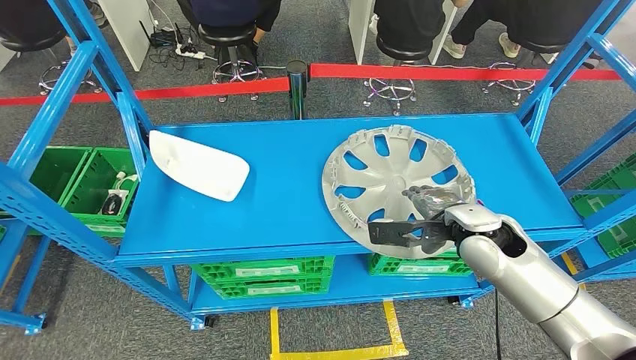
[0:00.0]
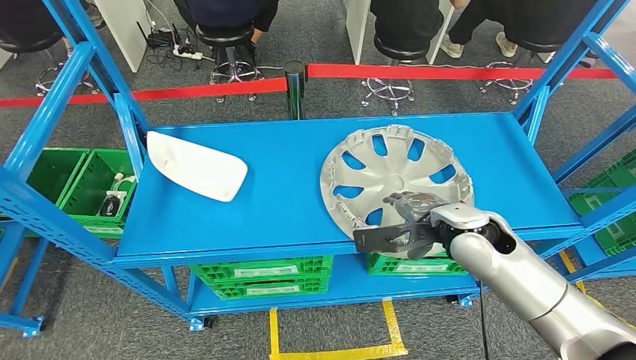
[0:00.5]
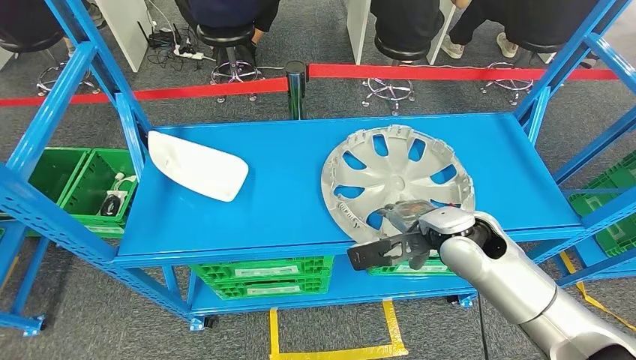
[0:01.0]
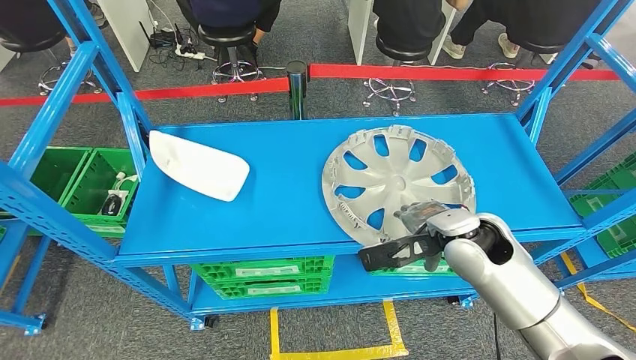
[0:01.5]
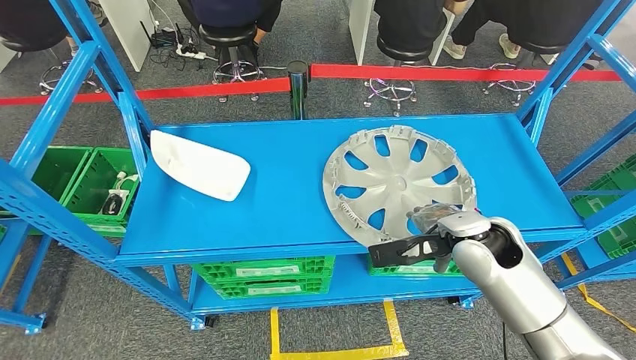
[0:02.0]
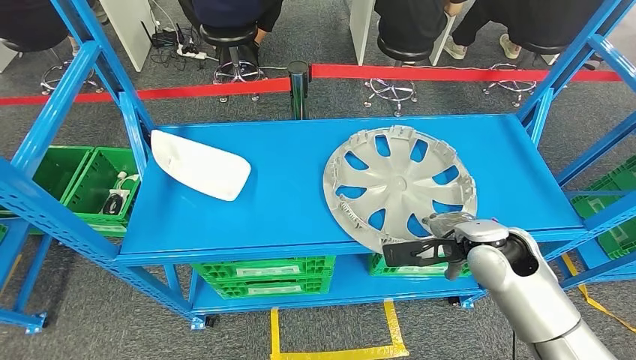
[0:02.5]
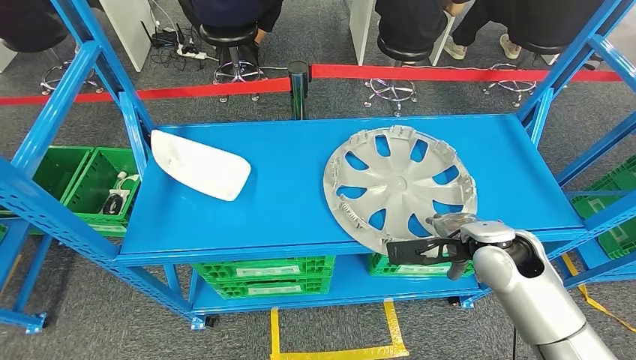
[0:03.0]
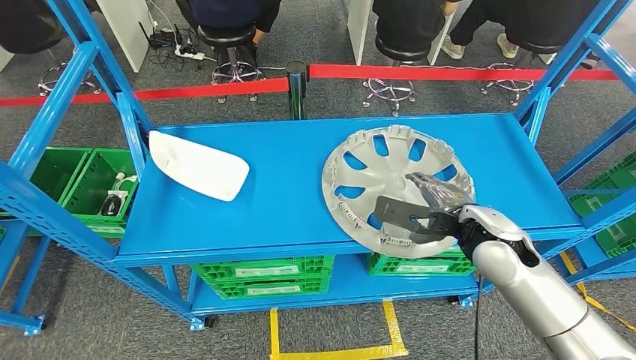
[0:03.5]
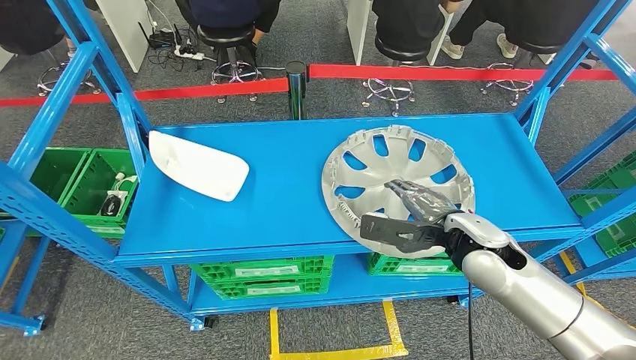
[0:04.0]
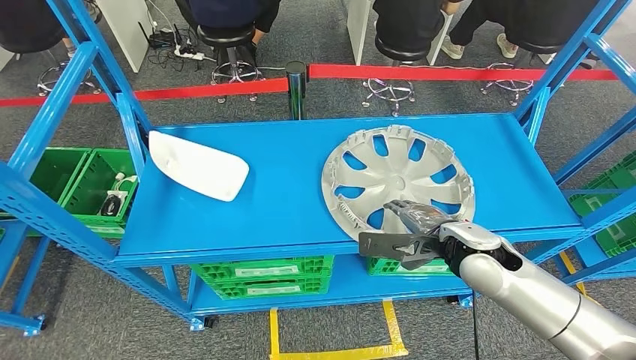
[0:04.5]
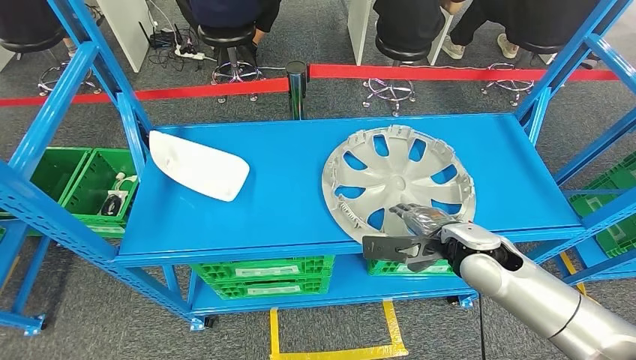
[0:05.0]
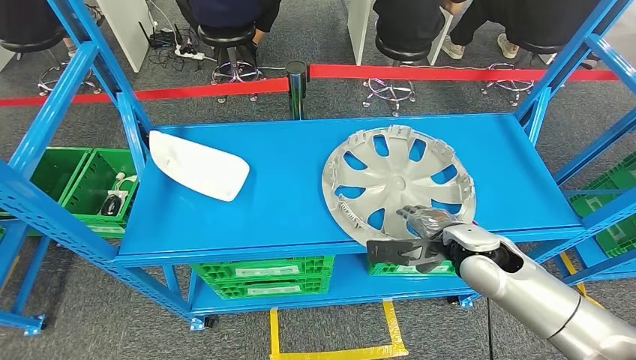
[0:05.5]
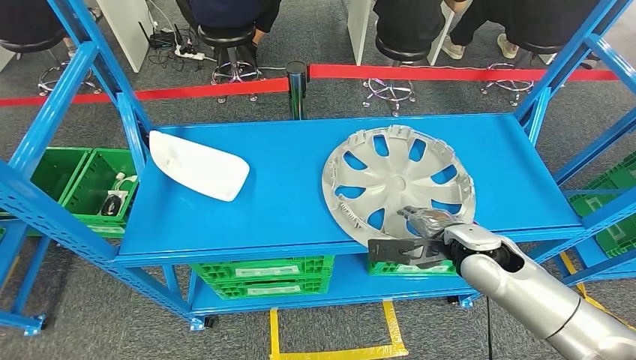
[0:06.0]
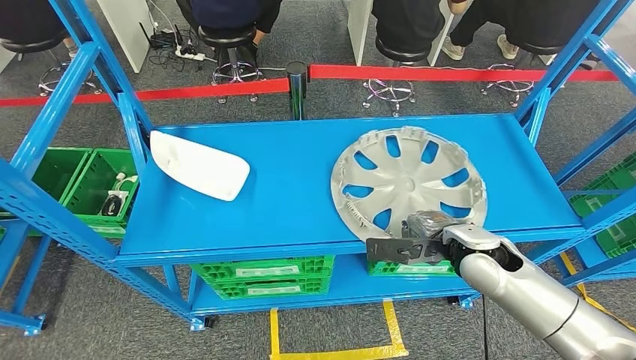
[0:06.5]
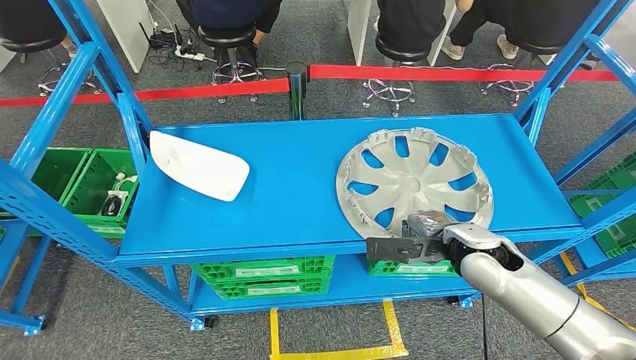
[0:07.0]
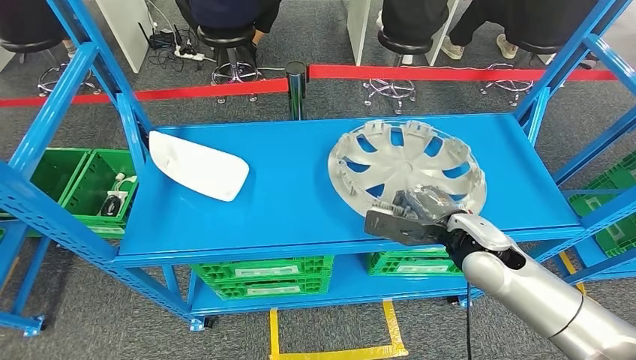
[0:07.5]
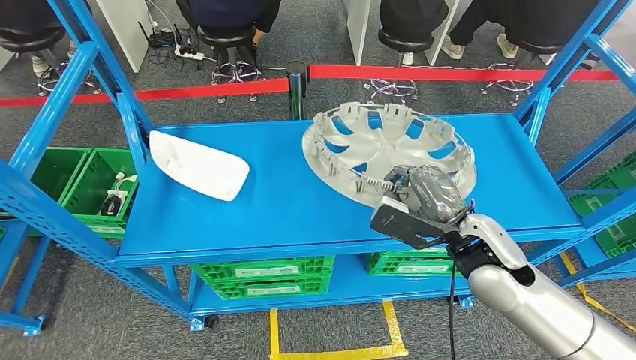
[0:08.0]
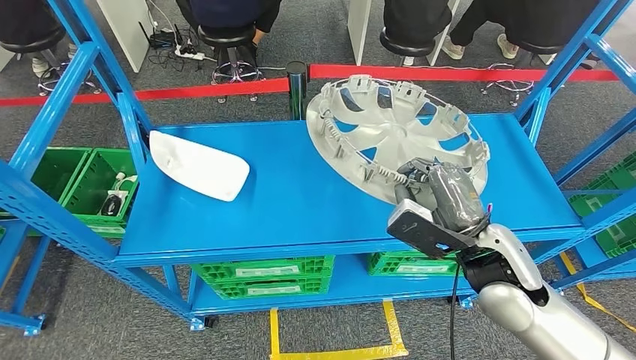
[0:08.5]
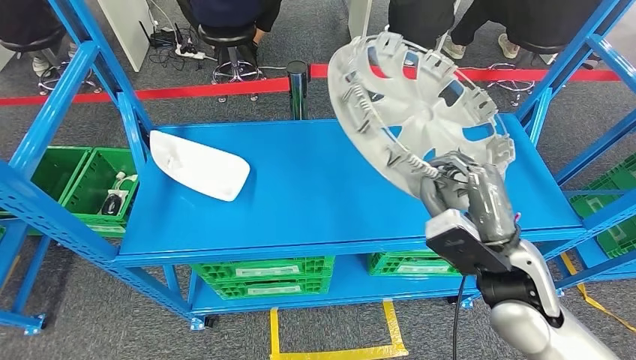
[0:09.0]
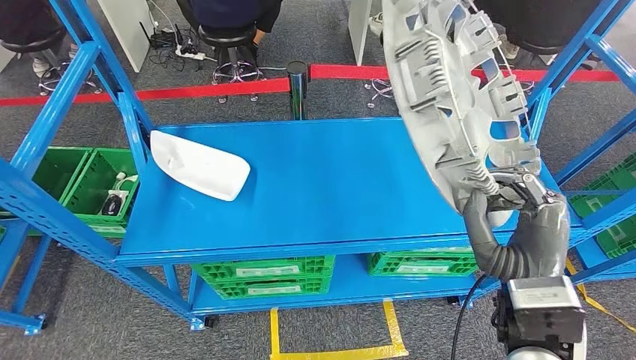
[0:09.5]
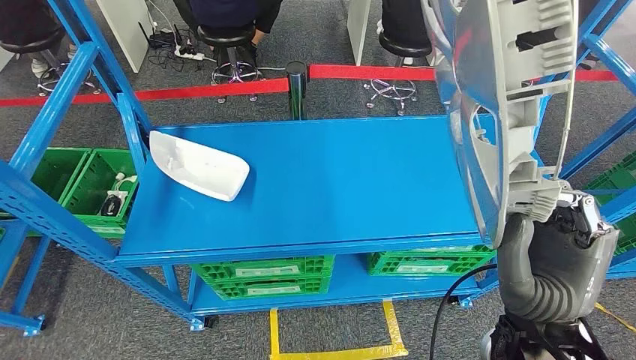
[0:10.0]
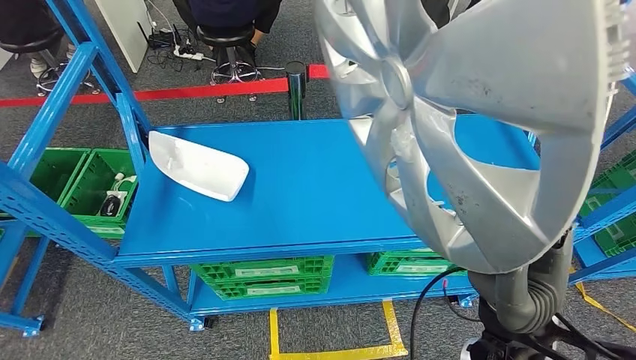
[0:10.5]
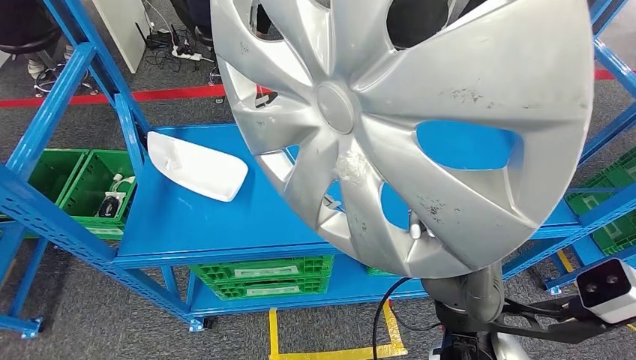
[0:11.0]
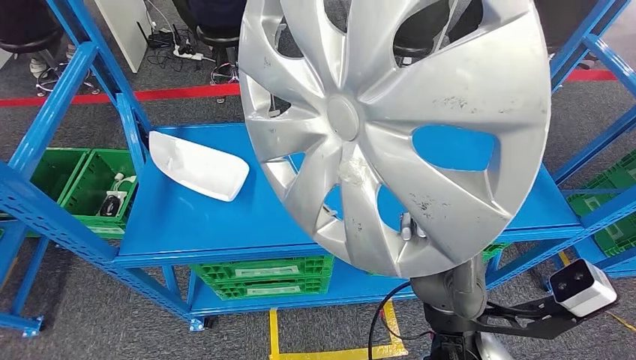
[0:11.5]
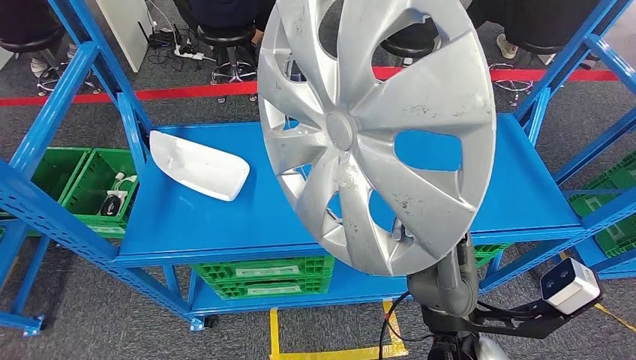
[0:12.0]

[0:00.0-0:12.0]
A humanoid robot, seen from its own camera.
Step, 0:00.0 to 0:10.0: Take small components from the rack.
0:00.0 to 0:02.0: The hands make only small movements.
0:04.0 to 0:06.0: The hands stay close to where they were, moving slightly.
0:06.0 to 0:08.0: The right hand moves about 5 cm.

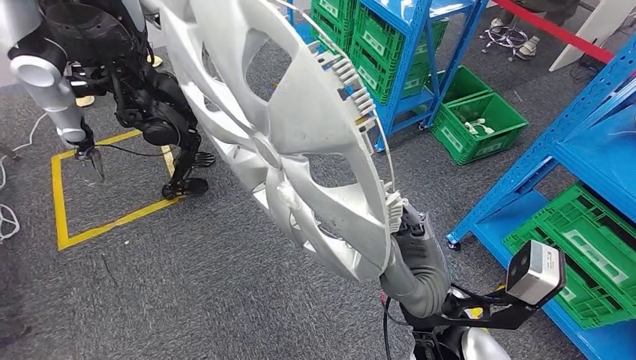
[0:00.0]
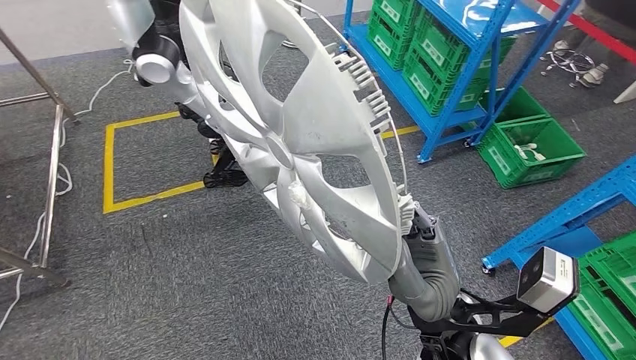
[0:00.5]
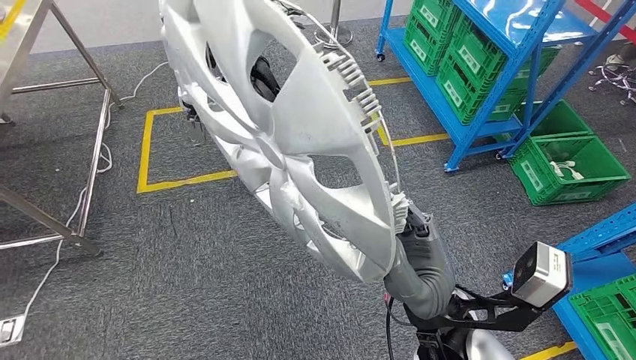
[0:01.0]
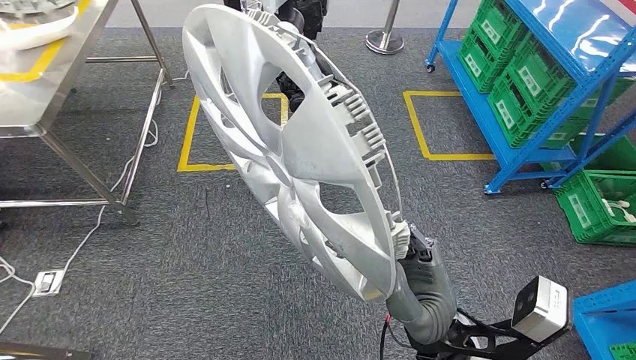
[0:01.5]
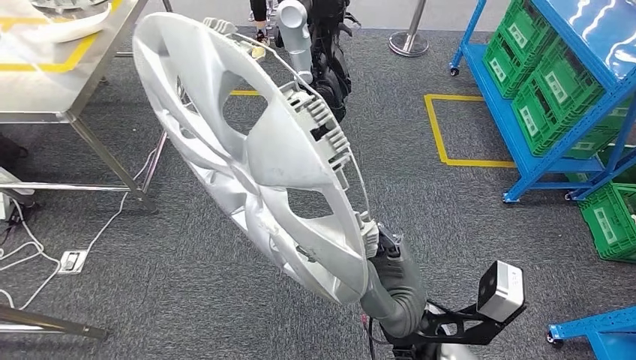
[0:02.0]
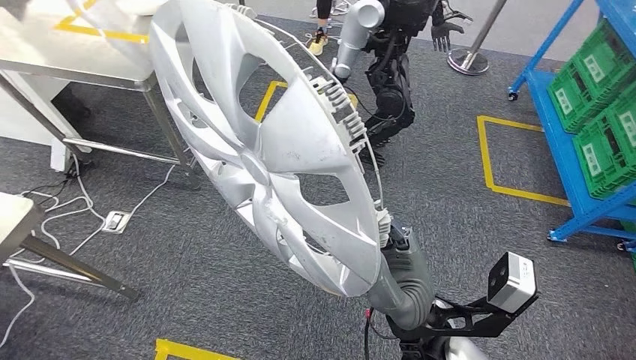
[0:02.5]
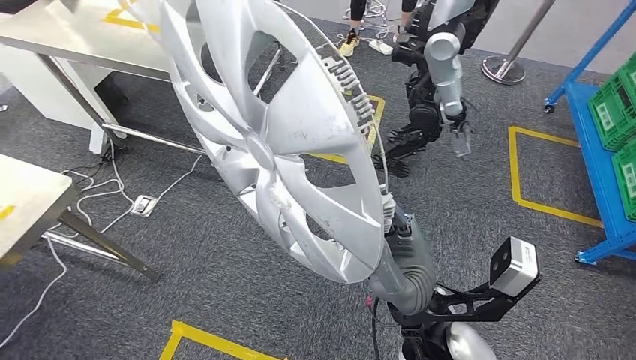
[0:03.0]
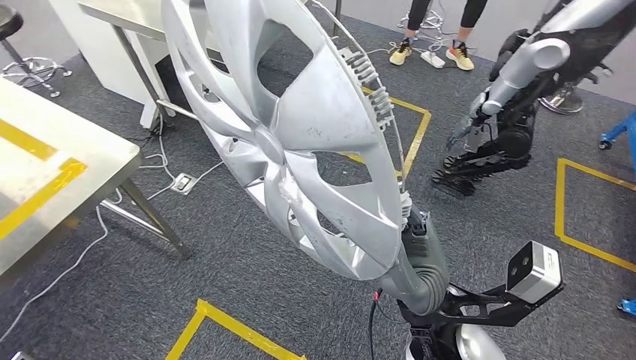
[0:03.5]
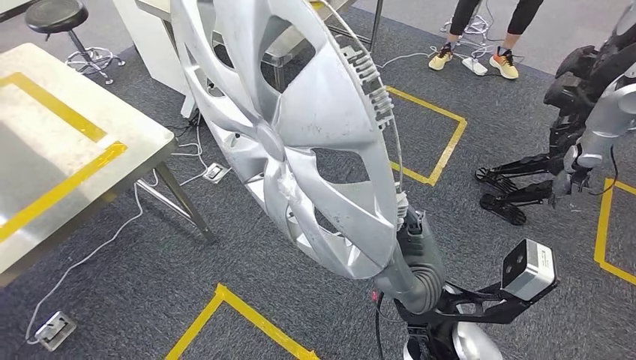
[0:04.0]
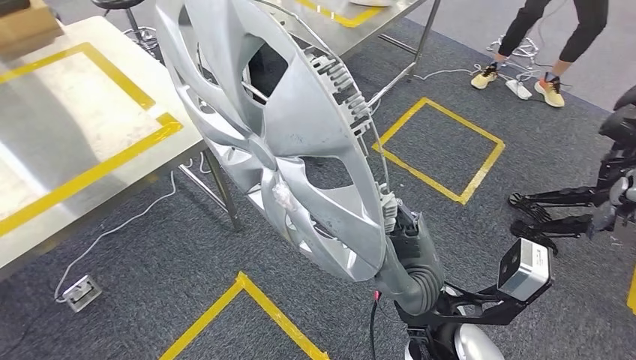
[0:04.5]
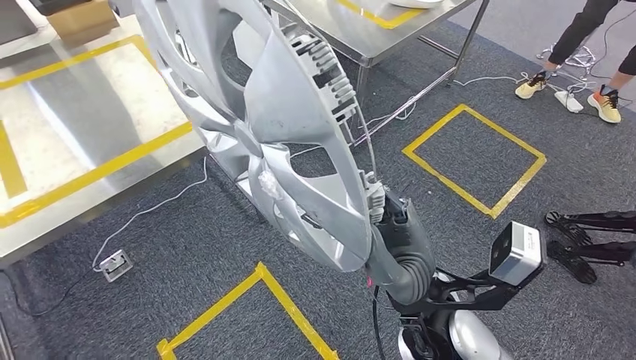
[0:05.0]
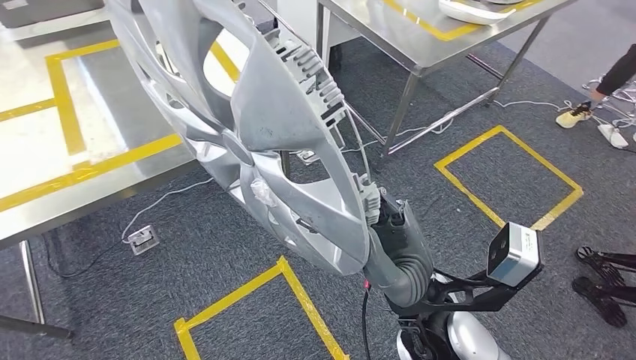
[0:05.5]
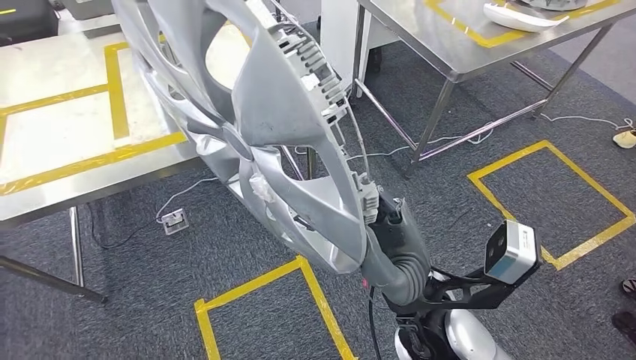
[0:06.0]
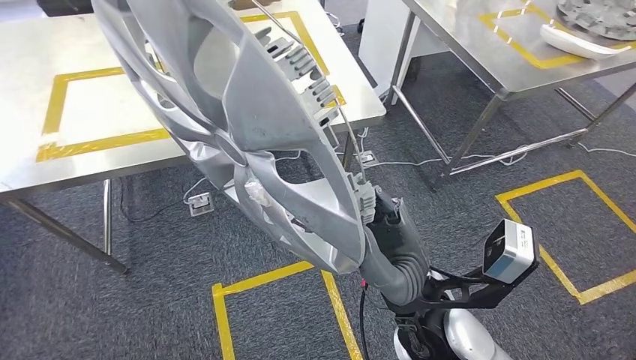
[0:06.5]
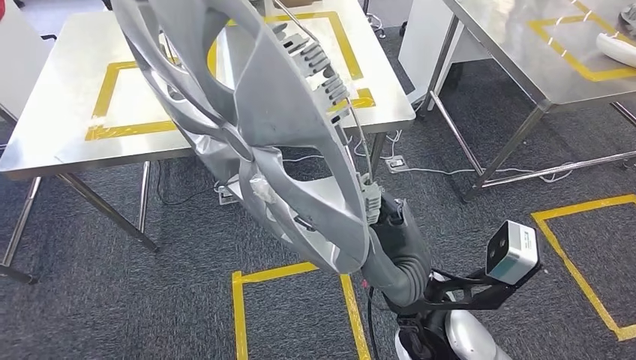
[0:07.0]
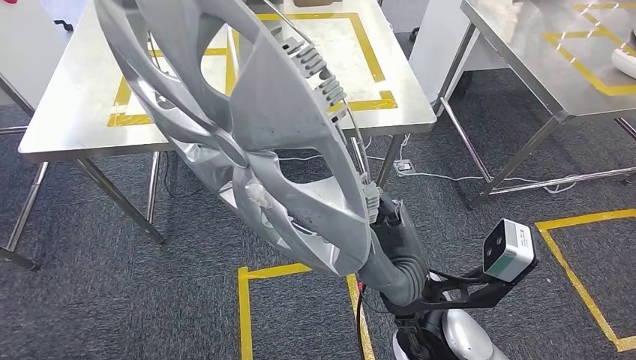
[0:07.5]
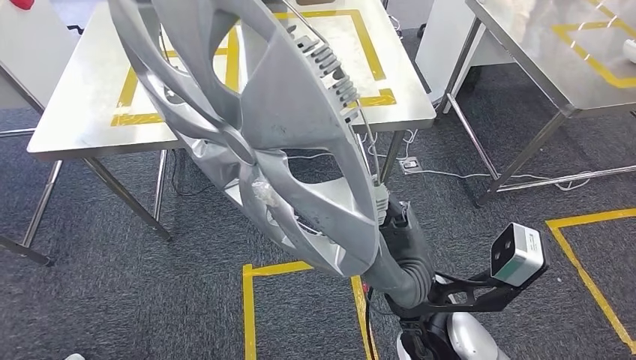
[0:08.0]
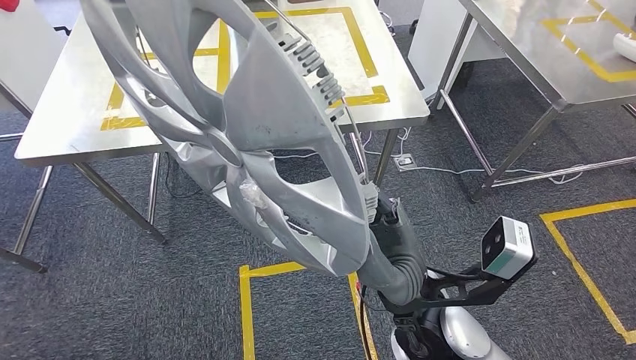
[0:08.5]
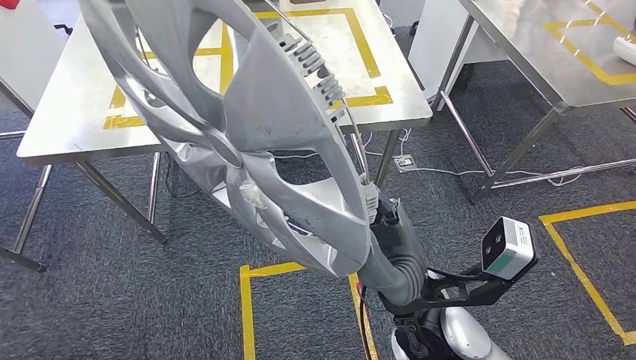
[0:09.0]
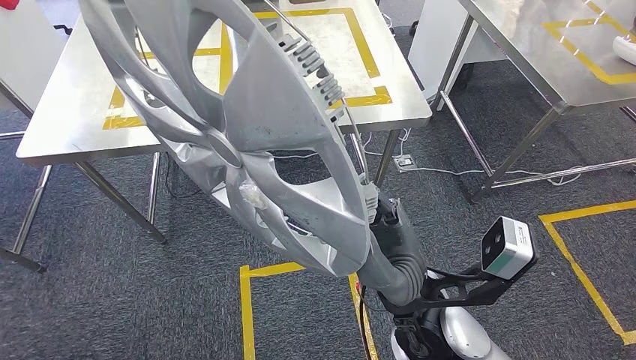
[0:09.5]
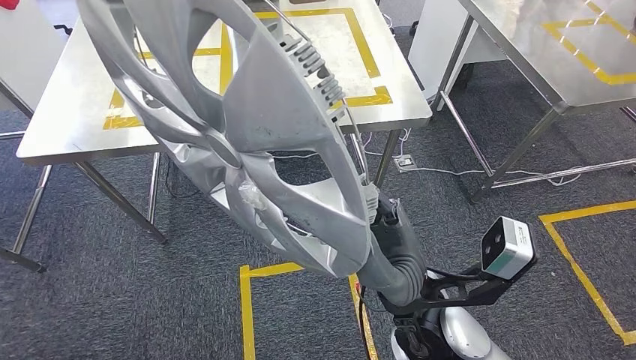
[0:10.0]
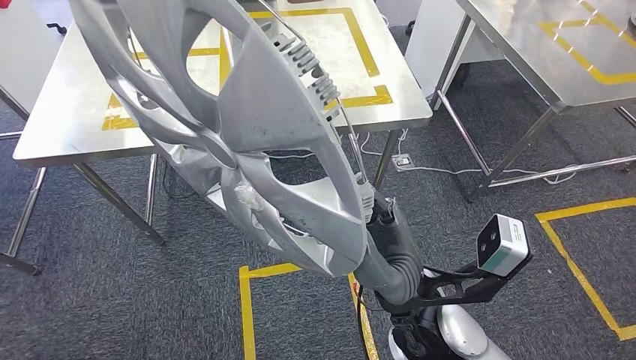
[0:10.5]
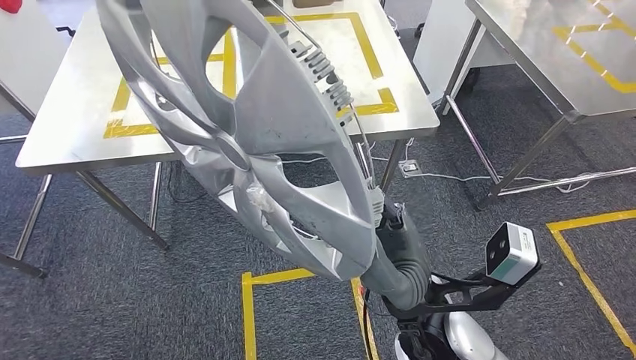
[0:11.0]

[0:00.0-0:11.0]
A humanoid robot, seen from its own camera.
0:07.5 to 0:09.0: Neither hand changes place.
